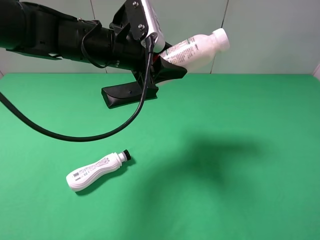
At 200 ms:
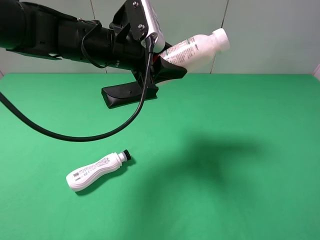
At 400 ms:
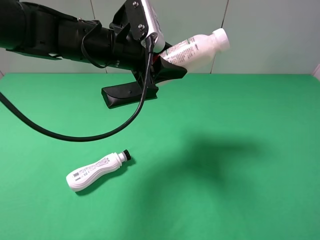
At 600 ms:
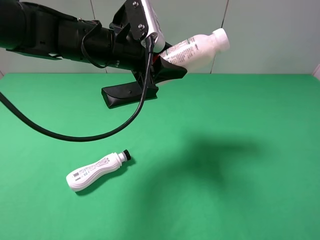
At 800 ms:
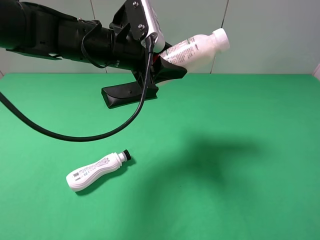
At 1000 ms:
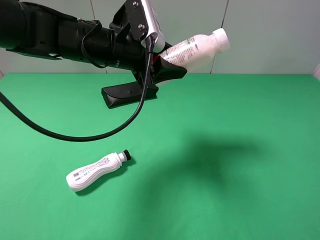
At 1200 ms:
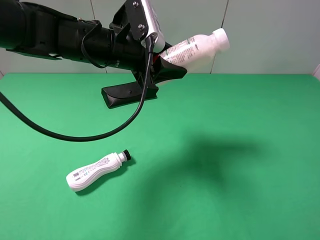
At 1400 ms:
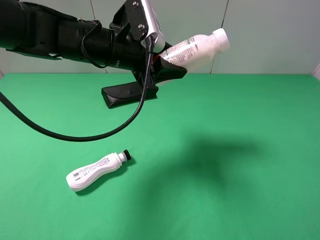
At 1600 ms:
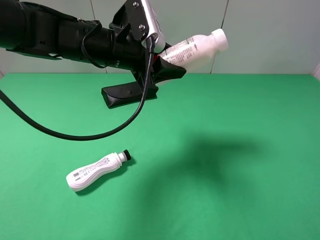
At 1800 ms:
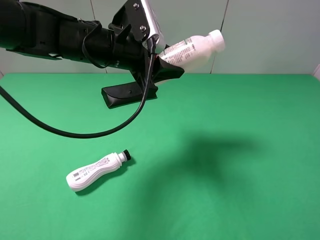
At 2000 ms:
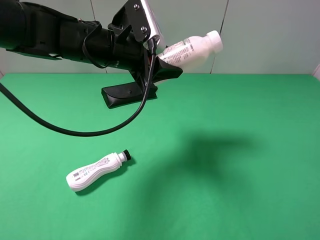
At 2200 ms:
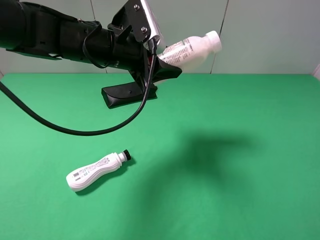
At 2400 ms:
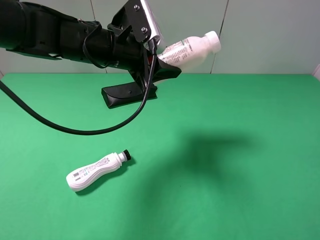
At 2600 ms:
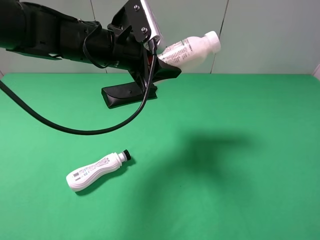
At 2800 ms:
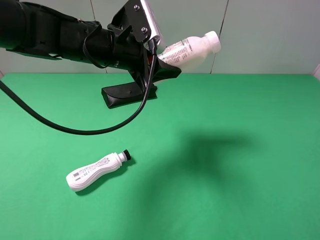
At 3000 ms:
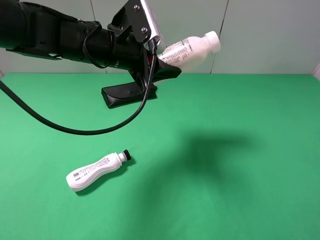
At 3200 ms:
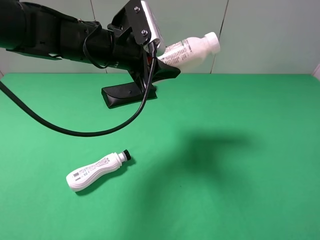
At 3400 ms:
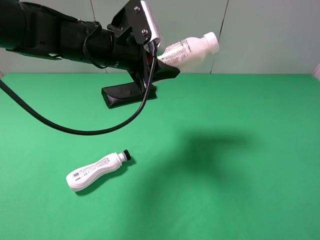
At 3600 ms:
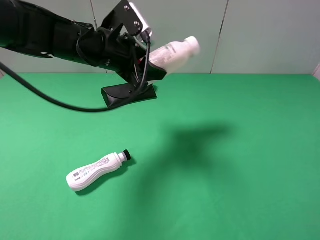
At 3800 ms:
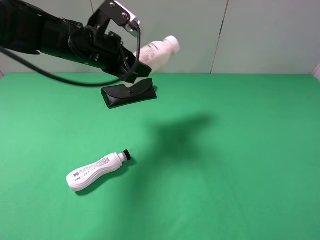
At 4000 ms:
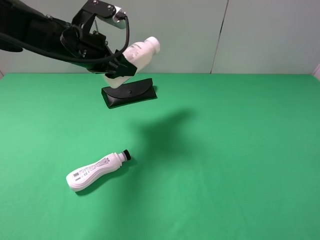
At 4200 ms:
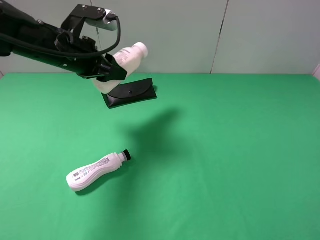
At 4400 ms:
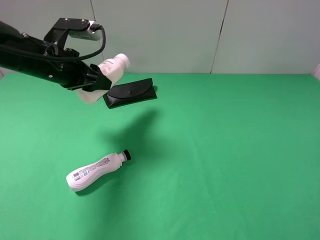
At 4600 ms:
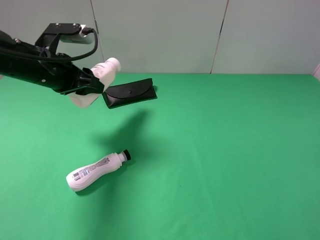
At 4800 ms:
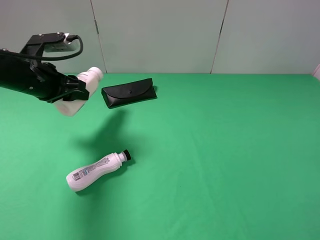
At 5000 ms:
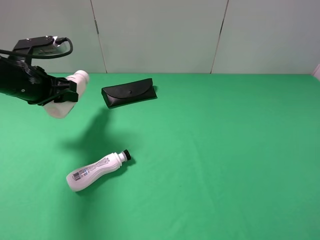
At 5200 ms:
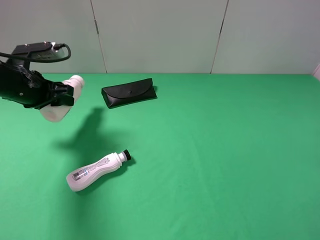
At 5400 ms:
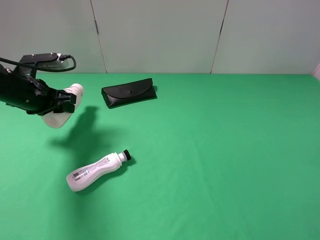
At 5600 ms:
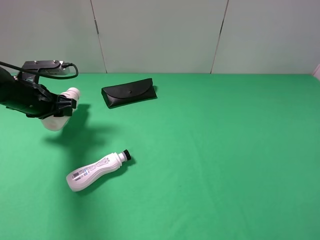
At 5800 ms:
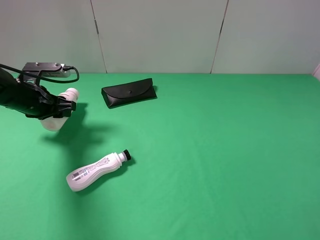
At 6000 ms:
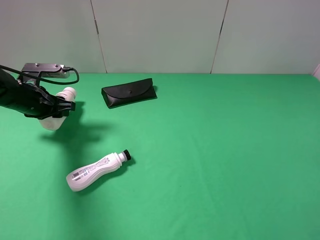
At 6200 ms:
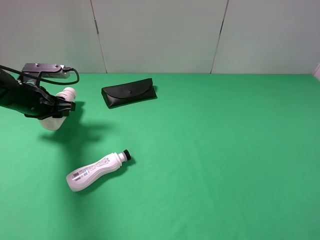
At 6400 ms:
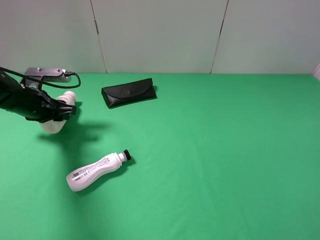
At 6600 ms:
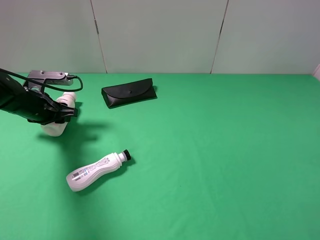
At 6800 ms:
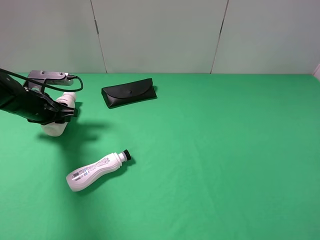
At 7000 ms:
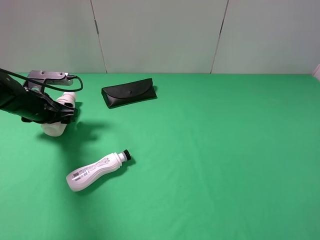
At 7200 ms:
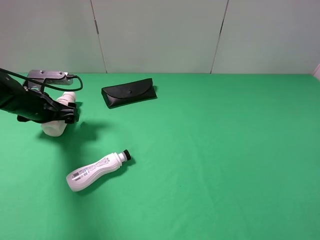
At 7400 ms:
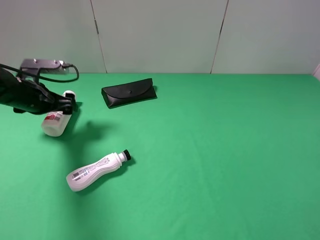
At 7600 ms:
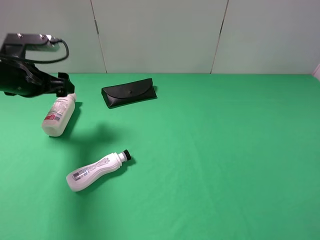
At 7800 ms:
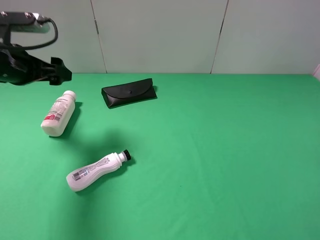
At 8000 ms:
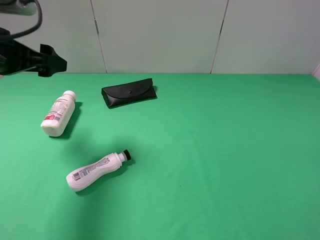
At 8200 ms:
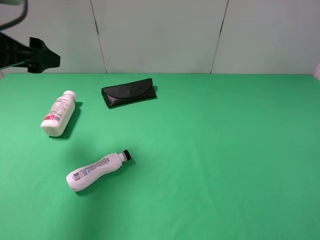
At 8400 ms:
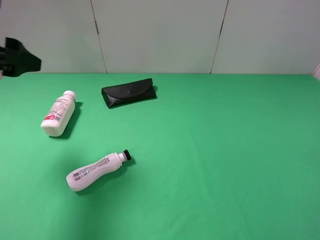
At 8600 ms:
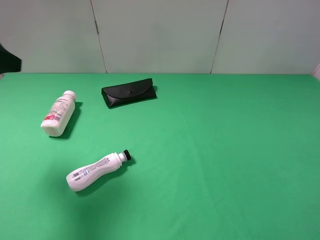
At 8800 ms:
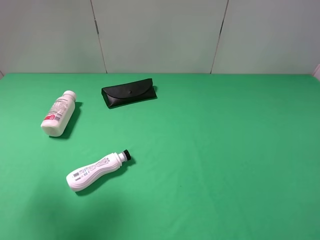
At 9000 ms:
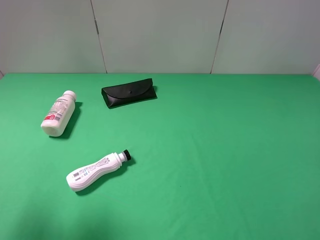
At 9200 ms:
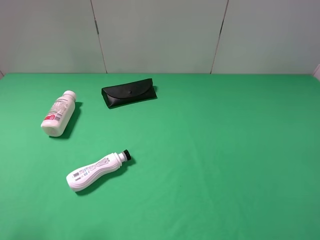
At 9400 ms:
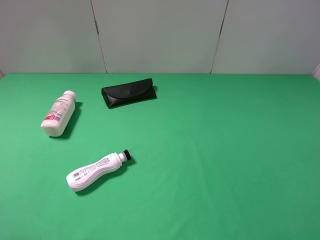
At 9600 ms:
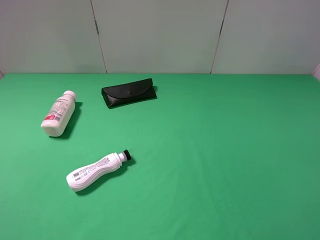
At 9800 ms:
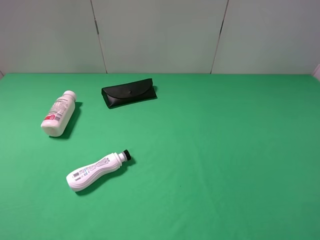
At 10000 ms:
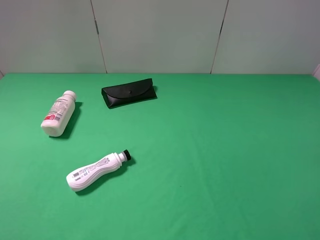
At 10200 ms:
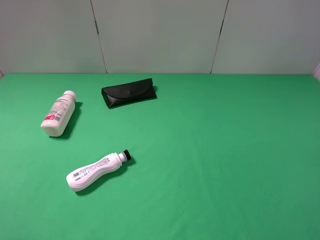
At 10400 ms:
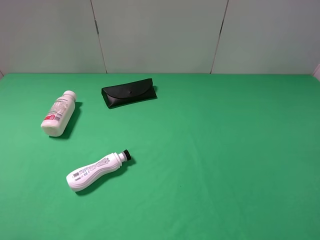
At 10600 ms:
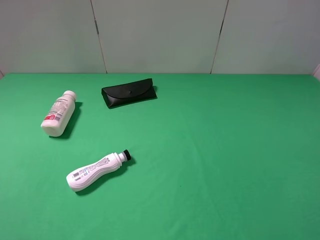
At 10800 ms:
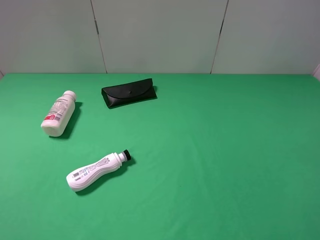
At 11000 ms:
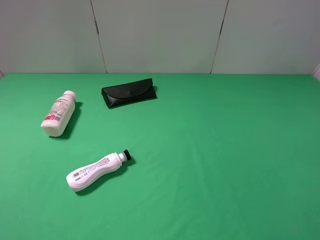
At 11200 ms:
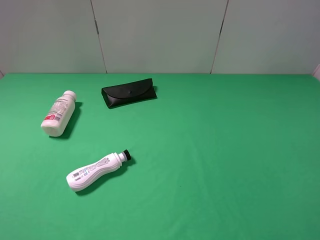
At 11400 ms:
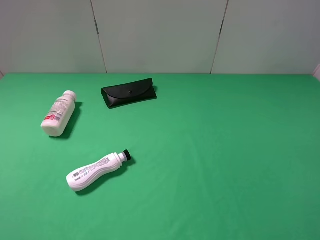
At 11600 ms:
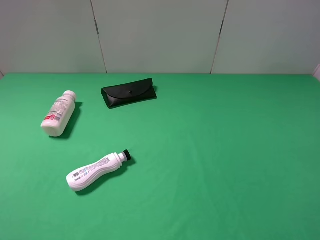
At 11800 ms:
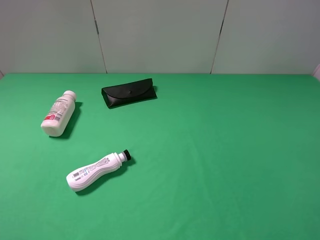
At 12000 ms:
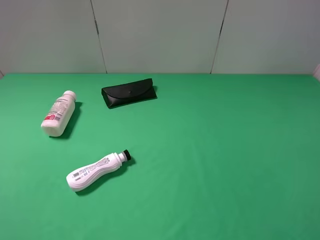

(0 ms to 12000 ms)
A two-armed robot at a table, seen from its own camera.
Task of the whole recording: use the right gripper to pick up the item and transfer it from the right gripper to the left gripper.
Step, 0 ms - 7200 ms: The left gripper places shampoo on the left side of the table.
1600 ms - 3000 ms: The grippers make only small movements.
3000 ms - 4400 ms: The left gripper heads to the left, covering approximately 10 cm.
4400 ms - 6000 ms: The left gripper goes some 10 cm downward and to the left.
6000 ms - 7600 ms: The left gripper travels upward by some 5 cm, and opens its fingers.
7600 ms - 9000 ms: The left gripper moves backward and upward, about 25 cm.
9000 ms - 10400 ms: The left gripper shifts roughly 5 cm backward.

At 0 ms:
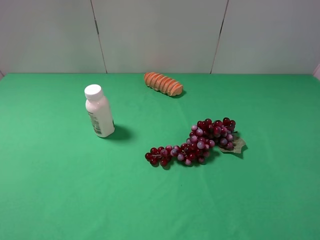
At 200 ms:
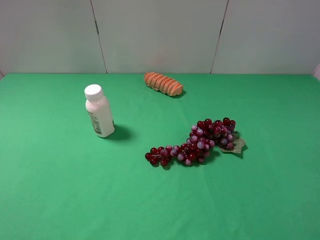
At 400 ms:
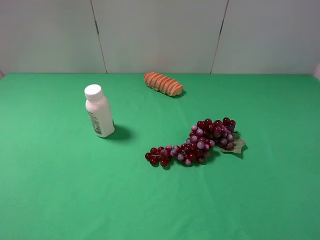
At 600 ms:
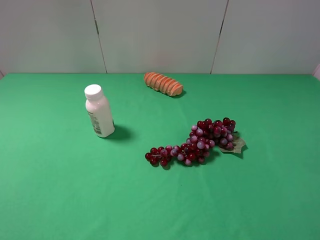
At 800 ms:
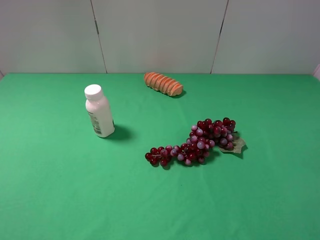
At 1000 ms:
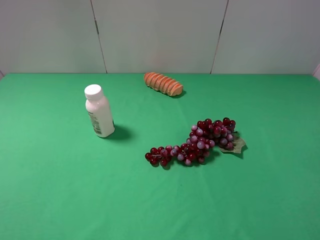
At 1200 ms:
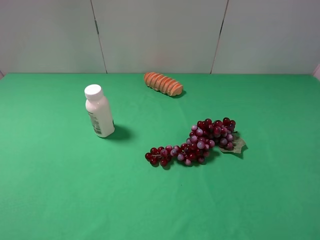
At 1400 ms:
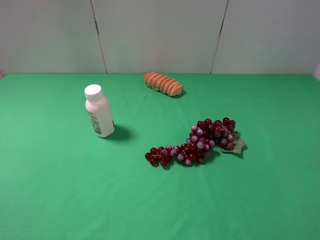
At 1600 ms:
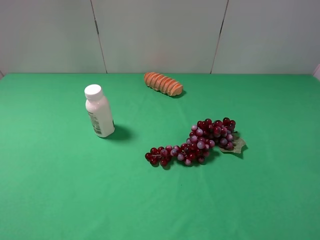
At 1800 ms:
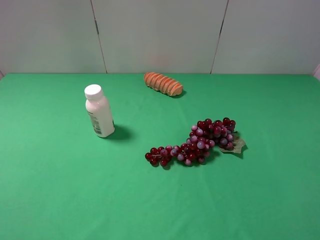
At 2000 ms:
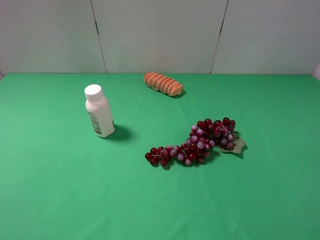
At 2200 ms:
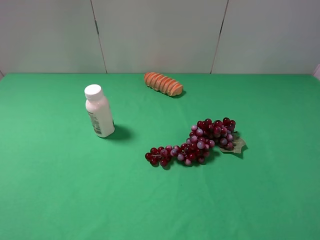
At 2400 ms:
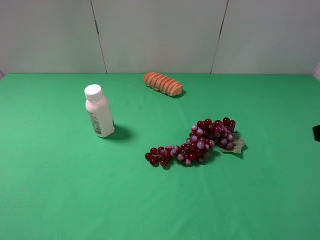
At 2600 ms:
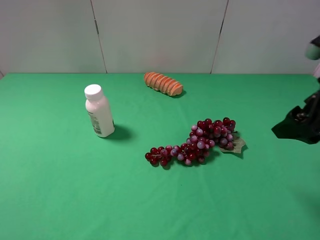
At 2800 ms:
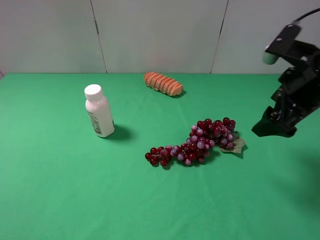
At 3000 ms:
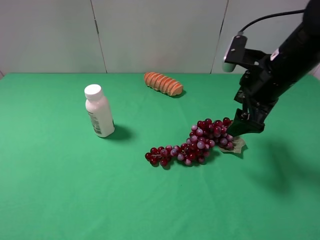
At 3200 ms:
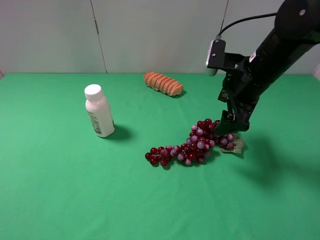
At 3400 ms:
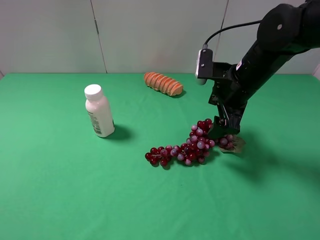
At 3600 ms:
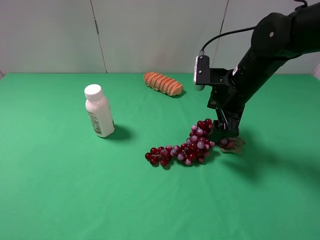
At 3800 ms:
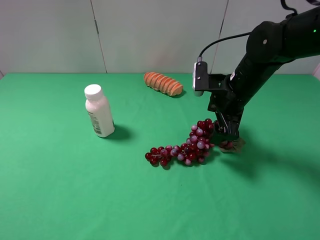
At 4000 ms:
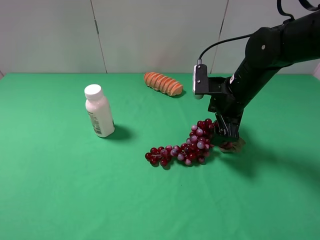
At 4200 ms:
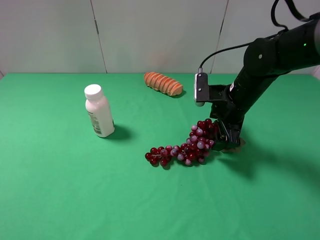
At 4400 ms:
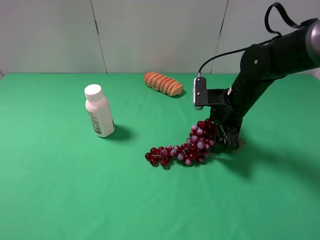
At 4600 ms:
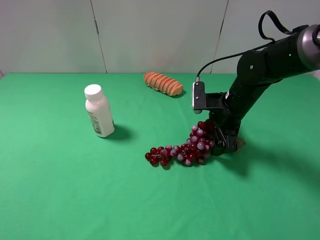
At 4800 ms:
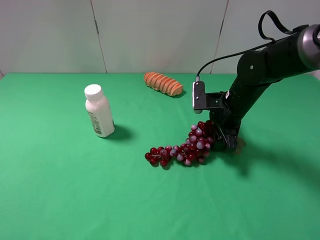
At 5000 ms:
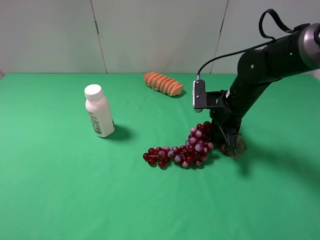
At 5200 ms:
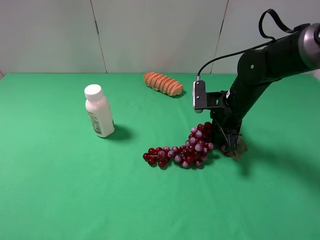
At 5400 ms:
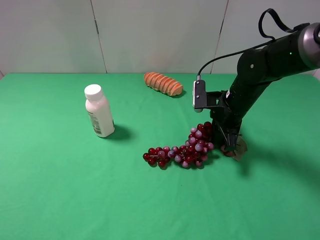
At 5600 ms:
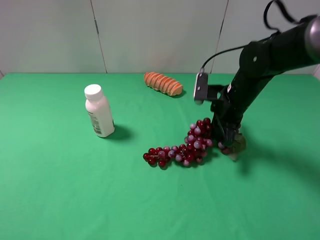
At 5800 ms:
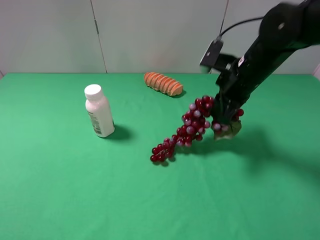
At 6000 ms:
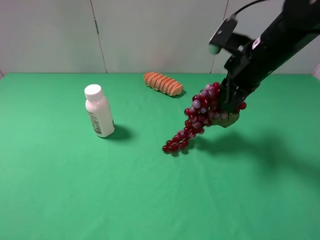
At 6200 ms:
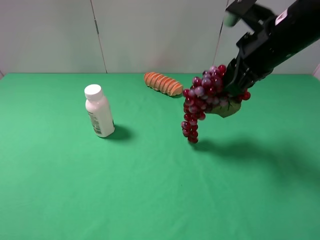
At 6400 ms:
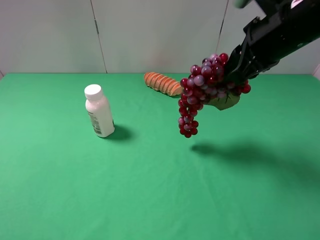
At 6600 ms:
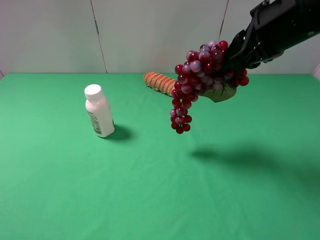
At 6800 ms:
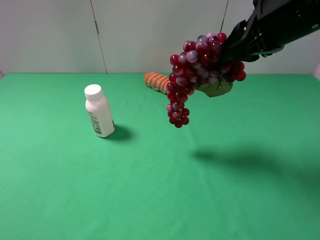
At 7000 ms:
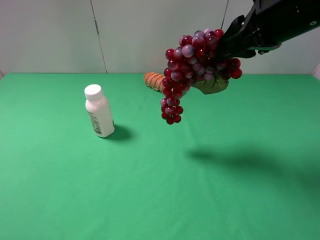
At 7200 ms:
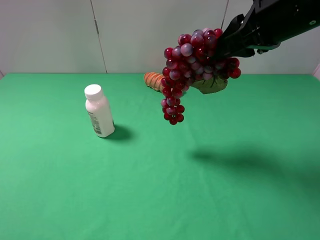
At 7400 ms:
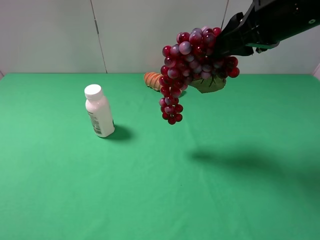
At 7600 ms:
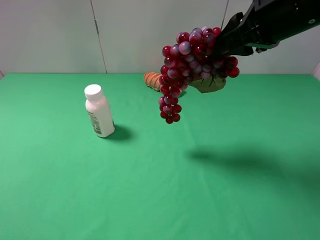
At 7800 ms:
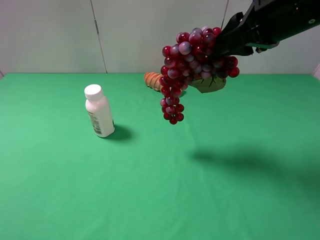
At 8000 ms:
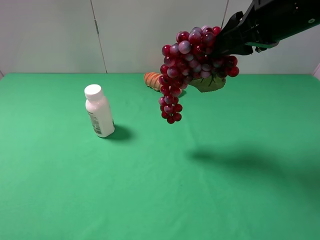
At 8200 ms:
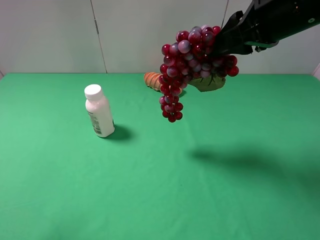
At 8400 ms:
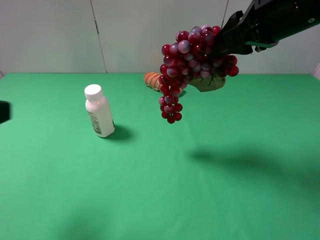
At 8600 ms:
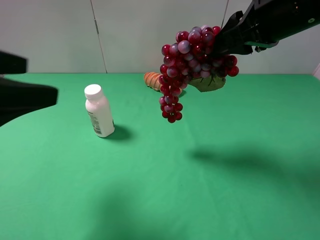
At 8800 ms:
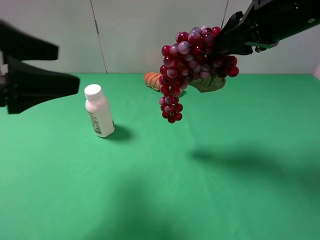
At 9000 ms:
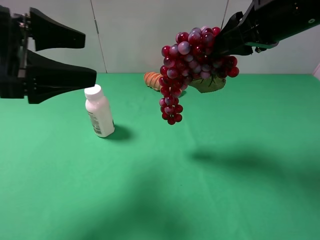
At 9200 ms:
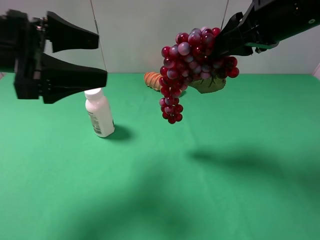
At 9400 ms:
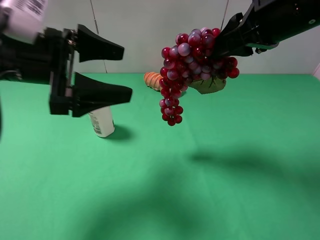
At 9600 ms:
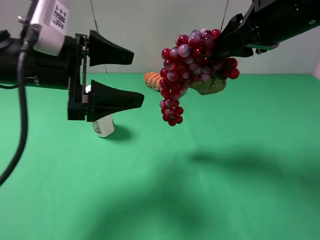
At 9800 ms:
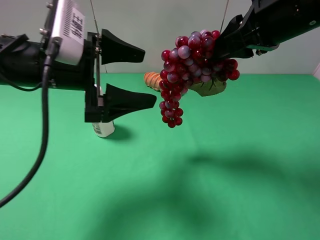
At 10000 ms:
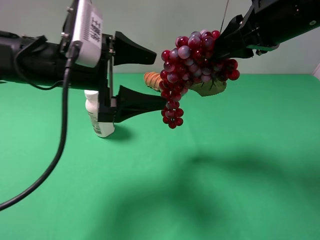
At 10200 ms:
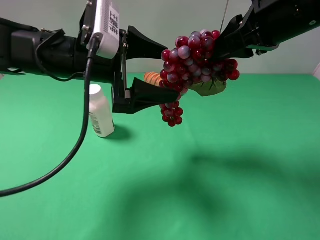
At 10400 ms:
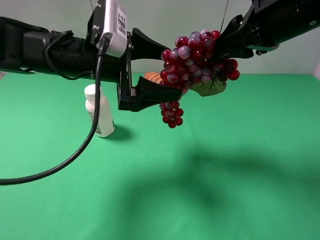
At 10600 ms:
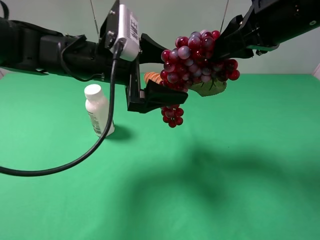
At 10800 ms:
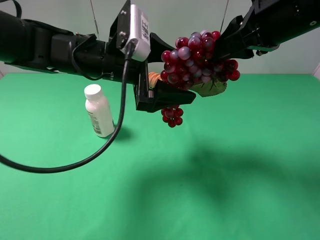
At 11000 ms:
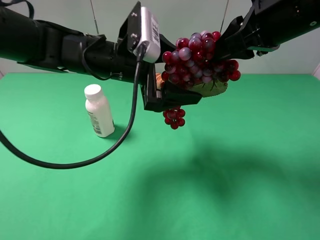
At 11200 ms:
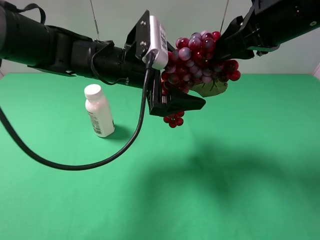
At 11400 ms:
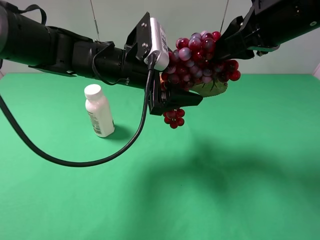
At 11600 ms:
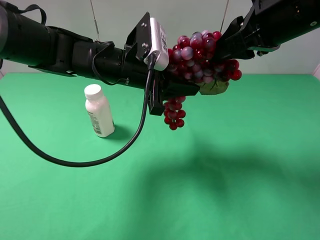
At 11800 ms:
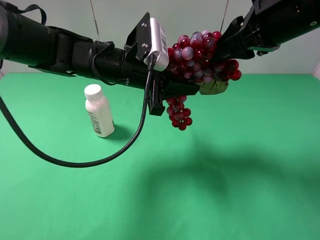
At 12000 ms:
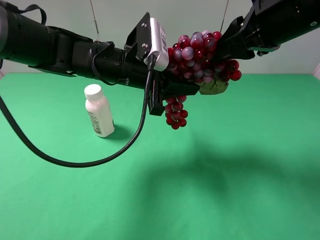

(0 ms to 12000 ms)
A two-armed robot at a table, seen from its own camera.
Task of the whole recording: use the right gripper to pick up the item and transfer it from the right gripper to the left gripper.
Step, 0 ms - 5000 ms: Use the right gripper to grab the grape on the right side of the table.
0 ms - 1600 ms: The two grippers keep their place.
1600 ms - 3000 ms: The right gripper goes about 30 cm forward and to the left.
3000 ms - 4400 ms: The right gripper shifts approximately 10 cm downward.
4400 ms - 6000 ms: The right gripper moves upward, roughly 10 cm, and closes.
6000 ms - 7600 ms: The right gripper shifts some 10 cm upward and backward.
7600 ms - 9000 ms: The left gripper goes roughly 20 cm forward.
9000 ms - 10400 ms: The left gripper is displaced to the right, forward and downward by approximately 15 cm.
10400 ms - 12000 ms: The left gripper ends up approximately 5 cm from where it was, and closes.
